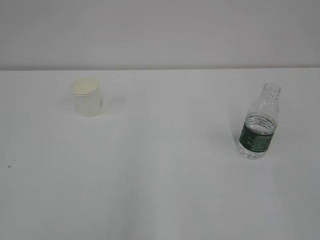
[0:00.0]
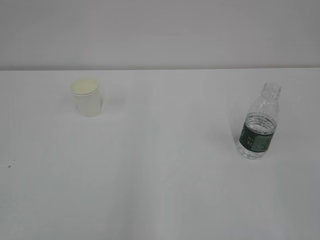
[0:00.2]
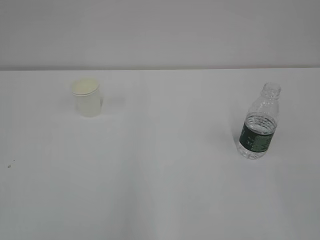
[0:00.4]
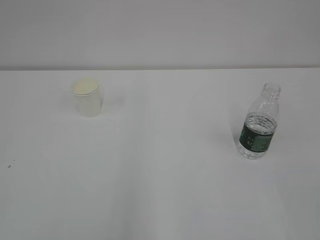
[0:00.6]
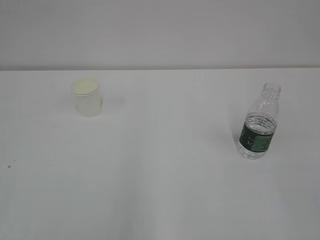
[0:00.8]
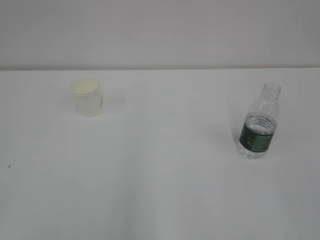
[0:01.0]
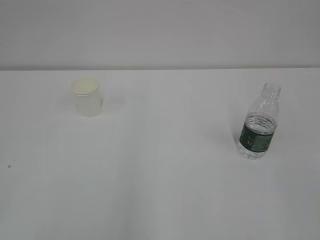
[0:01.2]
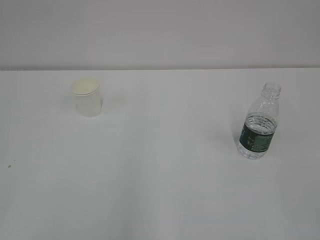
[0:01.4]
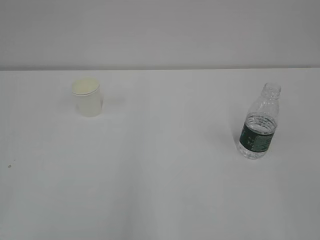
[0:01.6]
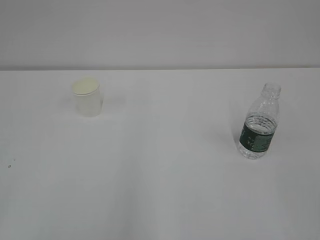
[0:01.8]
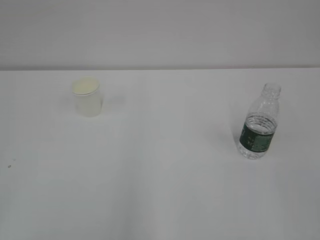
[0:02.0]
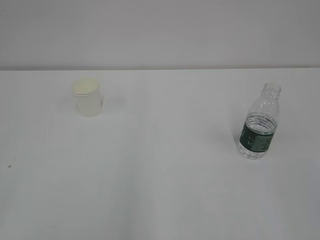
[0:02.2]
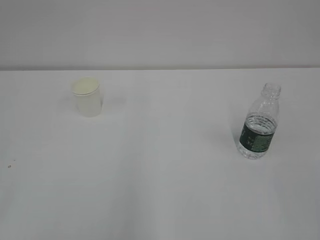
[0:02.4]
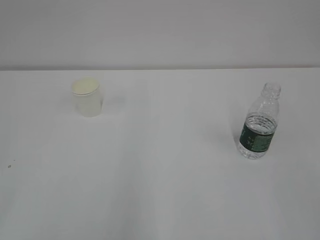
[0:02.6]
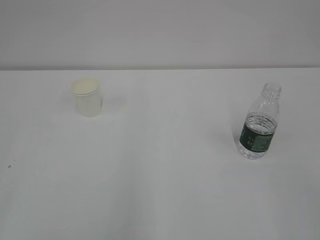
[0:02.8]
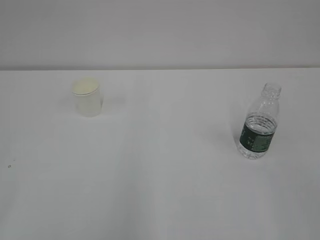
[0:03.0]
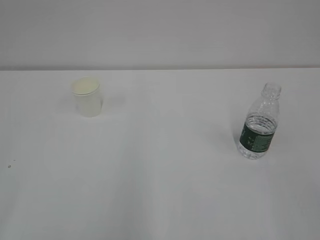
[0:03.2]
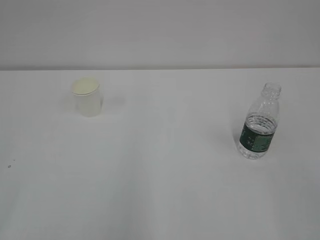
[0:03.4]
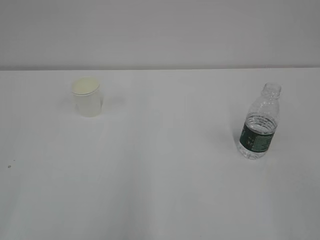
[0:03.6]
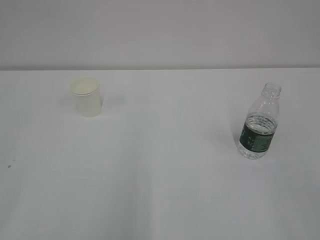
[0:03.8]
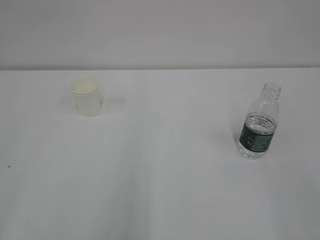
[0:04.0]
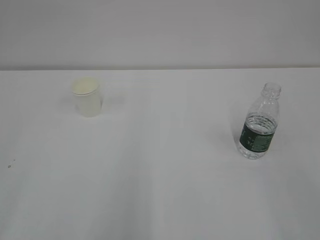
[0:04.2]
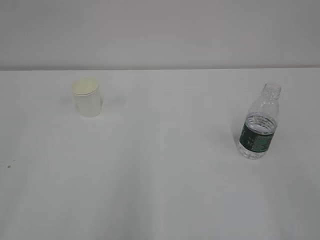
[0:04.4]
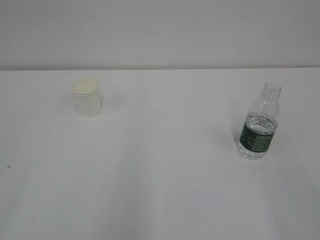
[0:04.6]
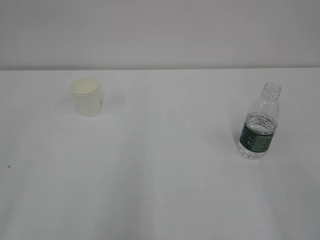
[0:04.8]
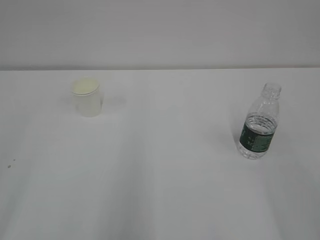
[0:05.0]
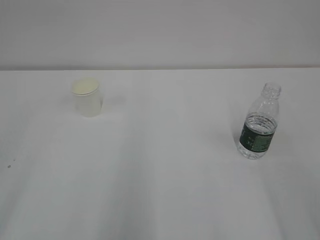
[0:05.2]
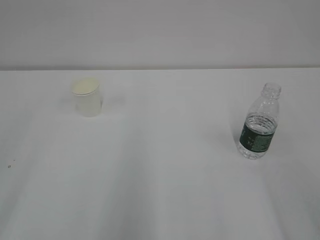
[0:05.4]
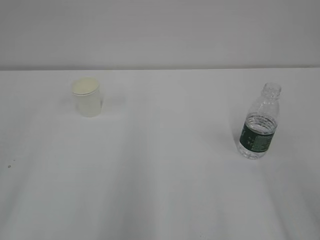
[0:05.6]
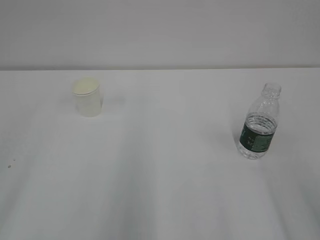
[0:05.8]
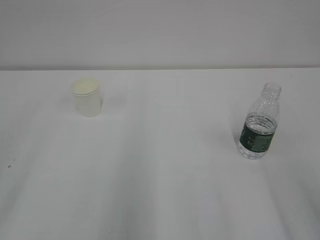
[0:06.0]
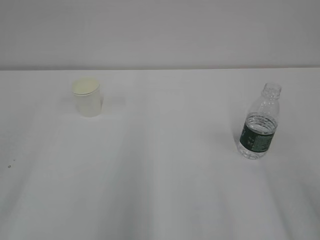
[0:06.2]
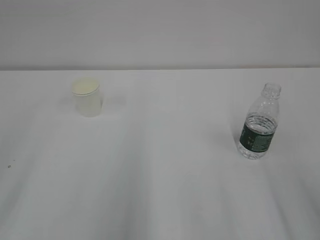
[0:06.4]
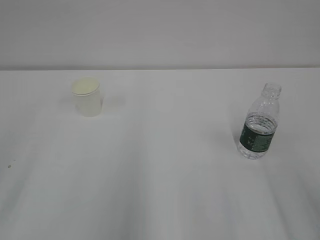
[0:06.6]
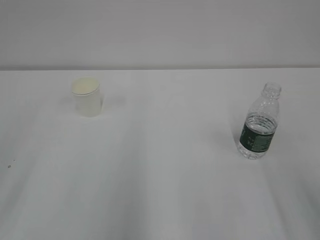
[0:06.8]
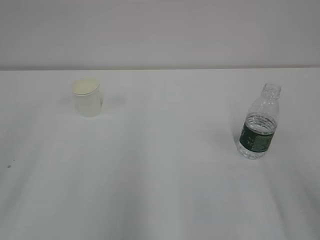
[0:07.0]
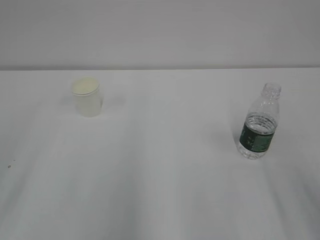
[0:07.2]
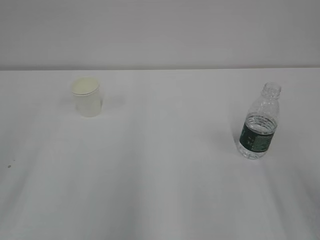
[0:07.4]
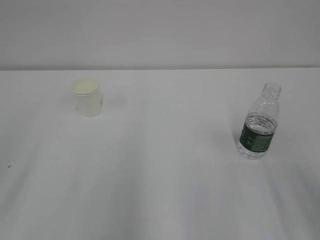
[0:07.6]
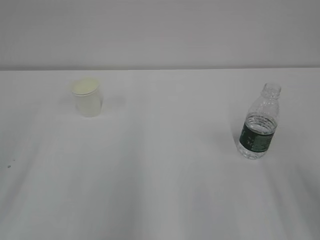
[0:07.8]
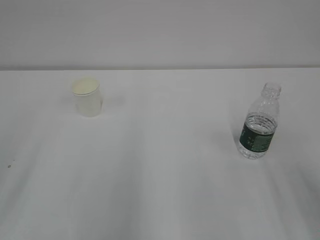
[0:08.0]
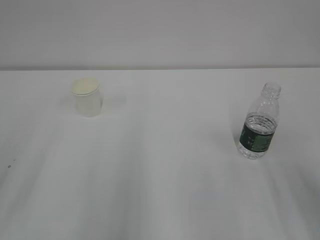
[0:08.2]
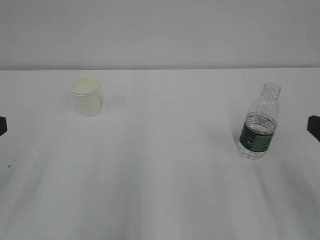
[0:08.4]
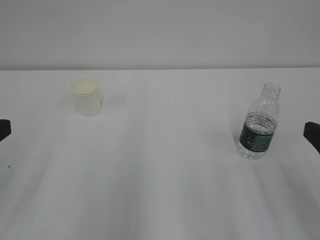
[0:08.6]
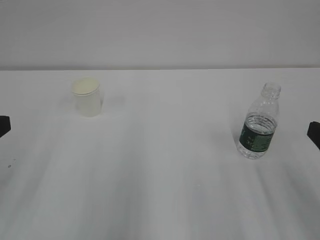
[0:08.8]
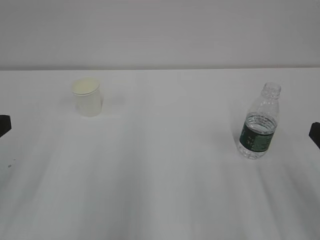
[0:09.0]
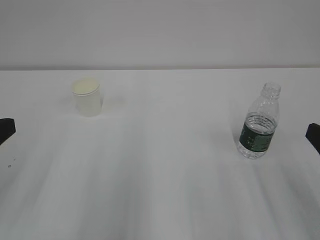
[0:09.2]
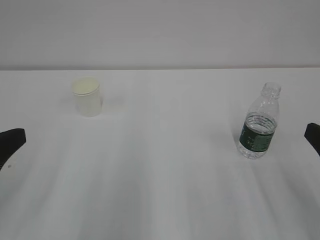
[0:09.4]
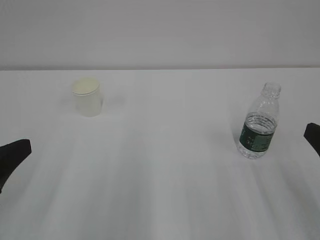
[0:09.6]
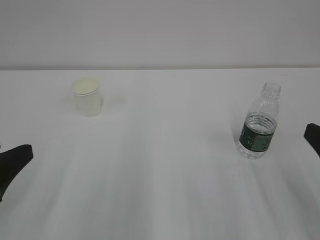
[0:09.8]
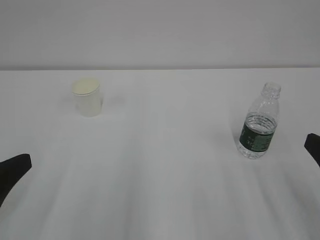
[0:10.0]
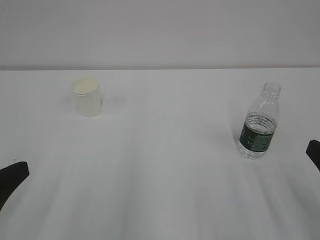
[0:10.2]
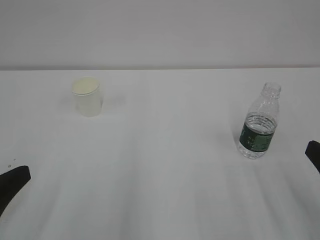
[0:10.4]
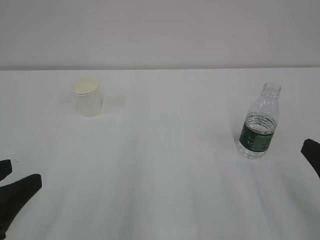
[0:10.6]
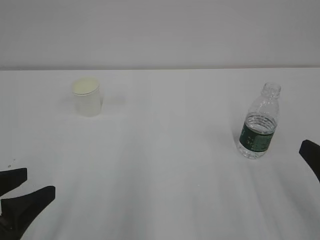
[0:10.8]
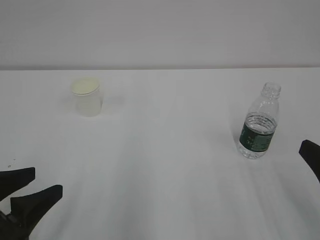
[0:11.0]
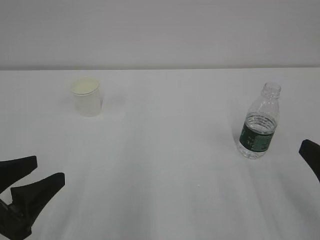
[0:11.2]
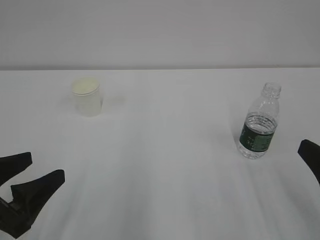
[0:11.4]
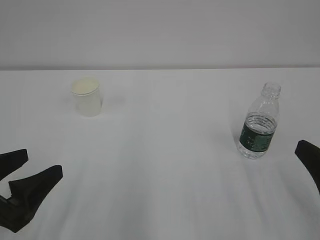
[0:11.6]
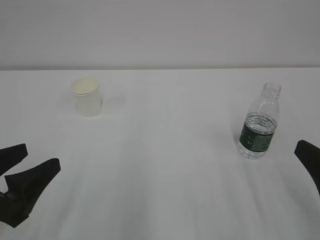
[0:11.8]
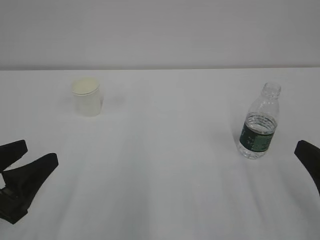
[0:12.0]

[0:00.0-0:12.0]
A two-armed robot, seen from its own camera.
0:09.0 to 0:10.4: The left gripper shifts some 5 cm downward.
0:10.4 to 0:12.0: The left gripper opens and closes again. Meanwhile the right gripper opens.

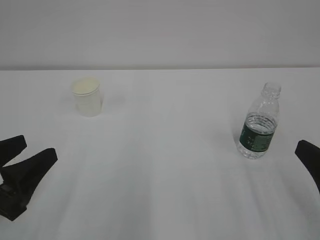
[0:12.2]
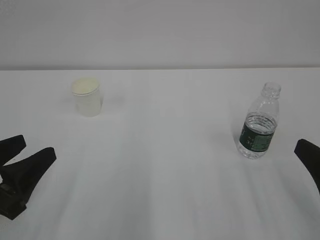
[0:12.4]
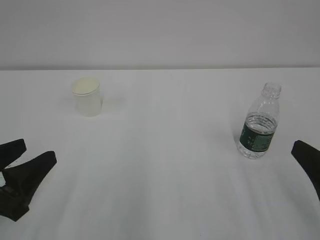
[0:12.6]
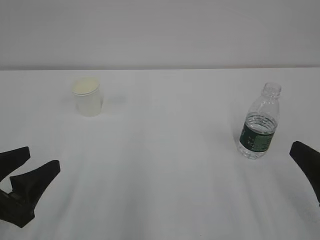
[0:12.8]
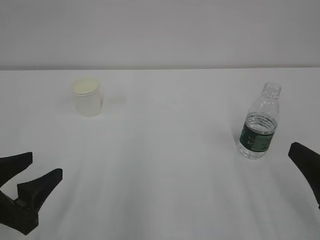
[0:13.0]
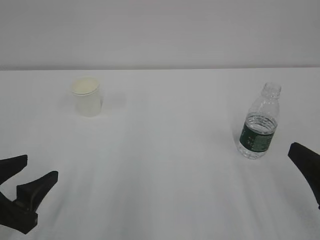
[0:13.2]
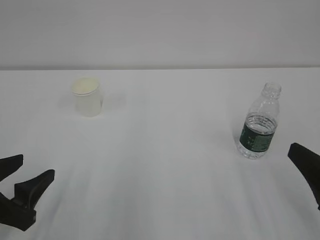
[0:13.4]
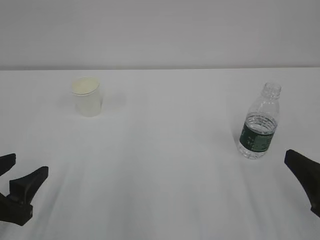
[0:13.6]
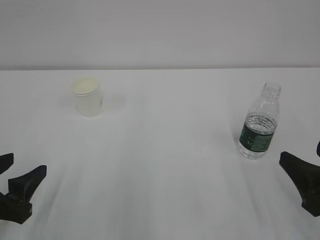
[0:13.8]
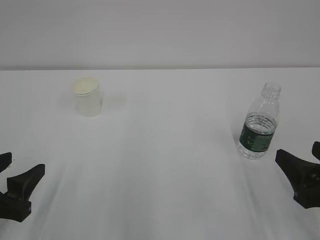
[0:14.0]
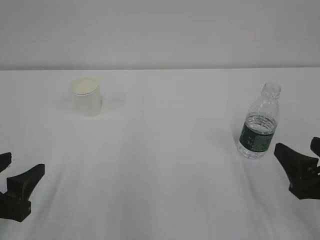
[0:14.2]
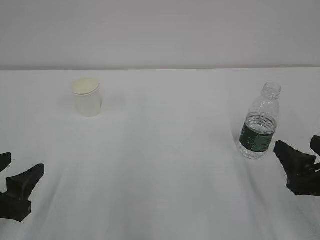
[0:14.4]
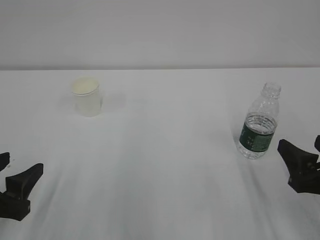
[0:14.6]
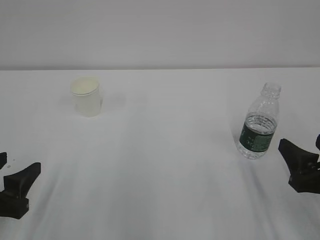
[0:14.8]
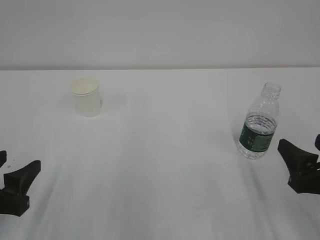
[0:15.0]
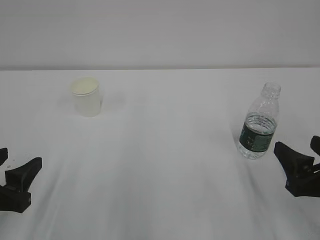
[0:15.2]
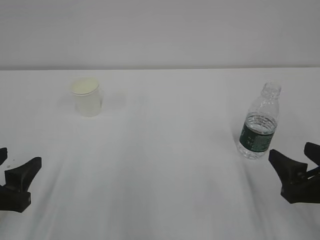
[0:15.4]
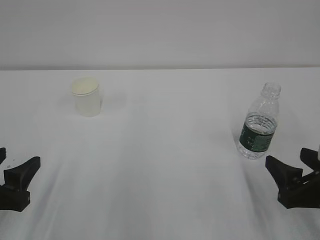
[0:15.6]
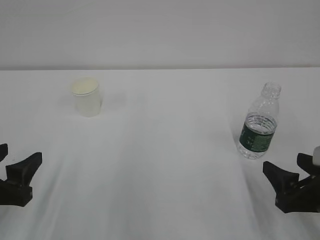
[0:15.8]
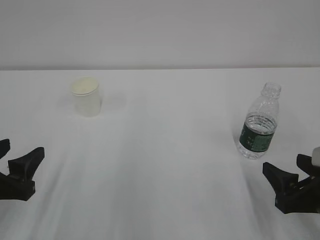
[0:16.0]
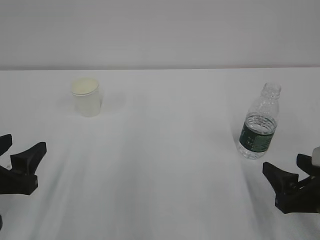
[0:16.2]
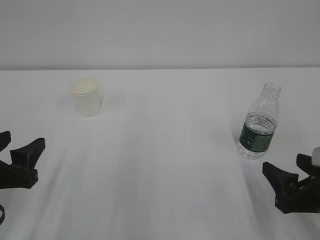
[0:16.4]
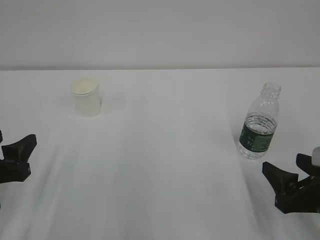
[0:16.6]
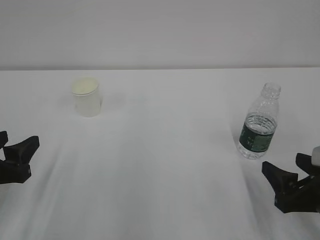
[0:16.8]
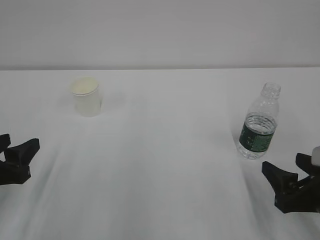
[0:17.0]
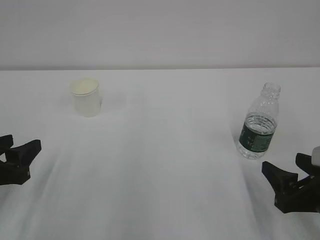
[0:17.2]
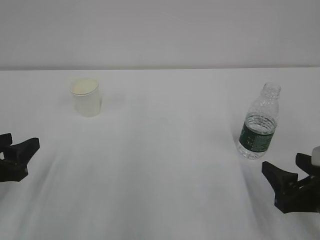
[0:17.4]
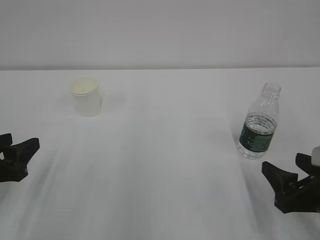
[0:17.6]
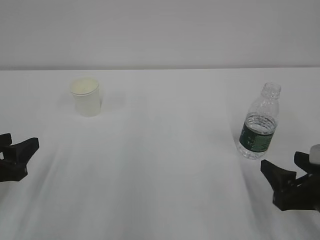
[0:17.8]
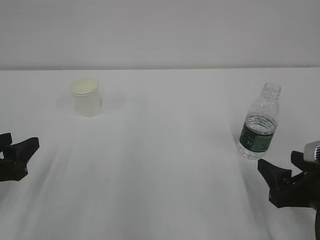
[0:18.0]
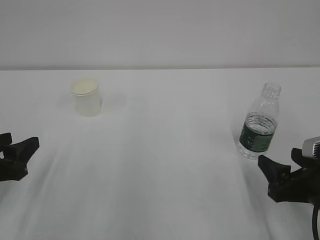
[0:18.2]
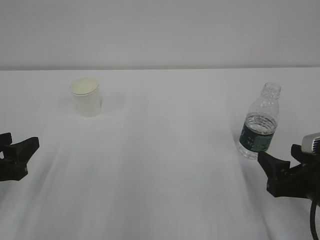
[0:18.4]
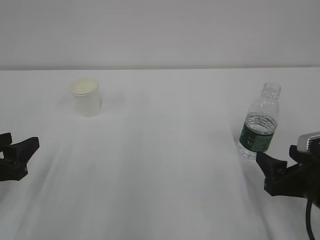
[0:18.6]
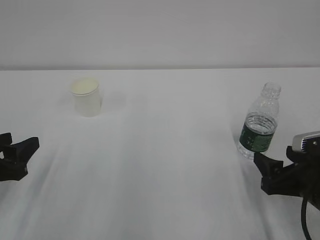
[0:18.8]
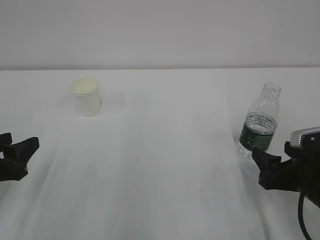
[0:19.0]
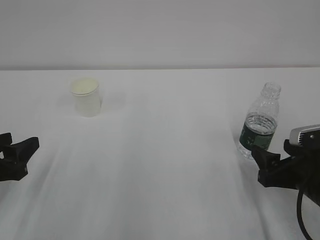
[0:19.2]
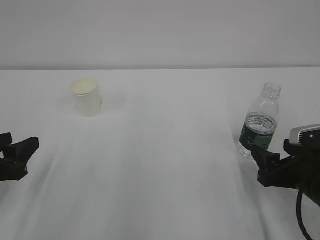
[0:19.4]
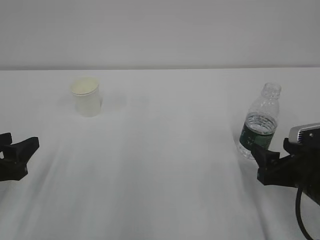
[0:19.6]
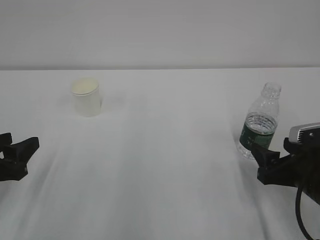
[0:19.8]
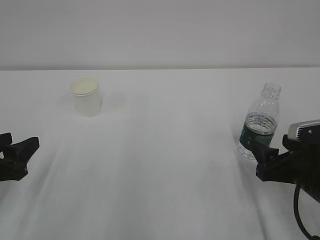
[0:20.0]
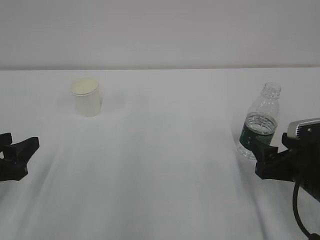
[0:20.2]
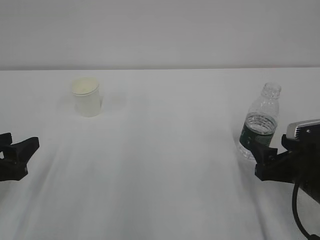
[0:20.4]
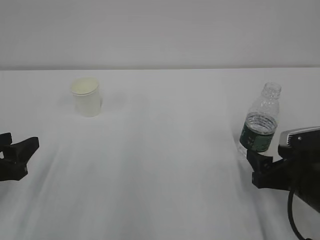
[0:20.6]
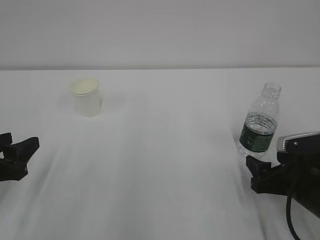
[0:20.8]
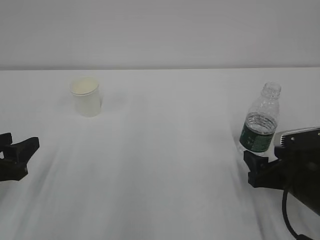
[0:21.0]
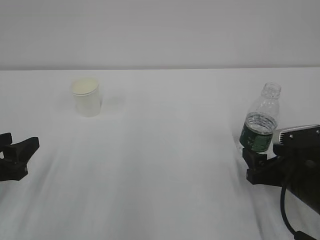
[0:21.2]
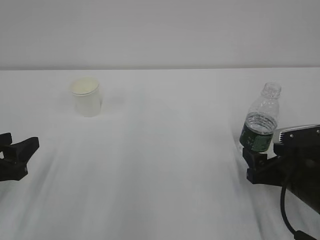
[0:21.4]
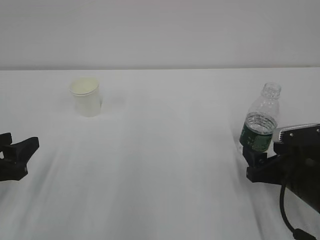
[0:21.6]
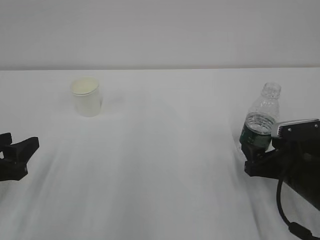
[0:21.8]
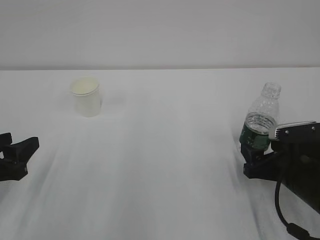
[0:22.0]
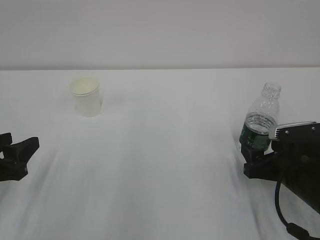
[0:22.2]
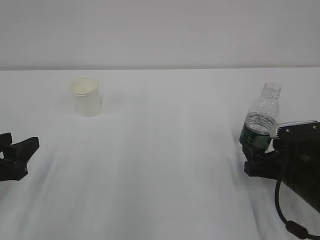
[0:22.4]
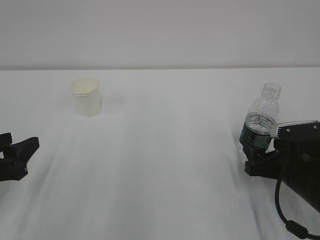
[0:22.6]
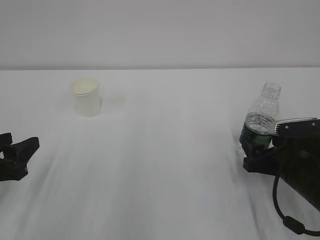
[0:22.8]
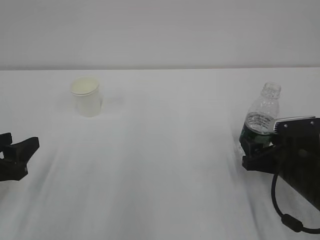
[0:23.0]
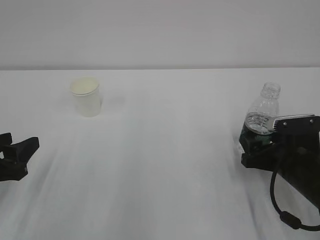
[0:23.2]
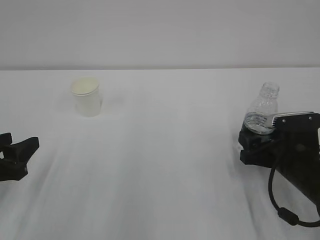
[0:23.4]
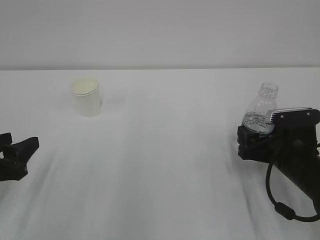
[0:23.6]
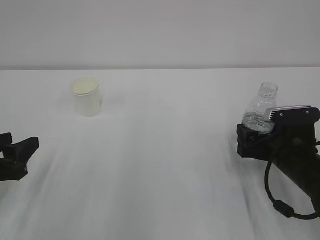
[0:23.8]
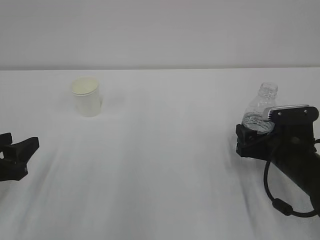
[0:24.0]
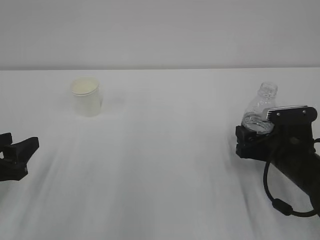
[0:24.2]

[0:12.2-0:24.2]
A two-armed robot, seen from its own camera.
0:12.2 to 0:13.8: There are only small adjustments of the grippers.
0:13.8 to 0:15.2: The grippers make only small movements.
0:15.2 to 0:19.8: The grippers stay close to where they were, moving slightly.
0:19.8 to 0:21.2: There are only small adjustments of the grippers.
0:21.2 to 0:22.6: Both grippers stay about where they are.
0:22.6 to 0:24.2: There are only small adjustments of the grippers.
